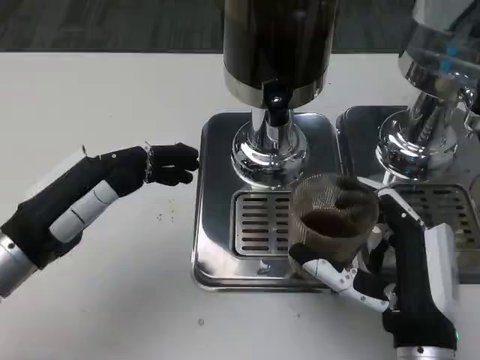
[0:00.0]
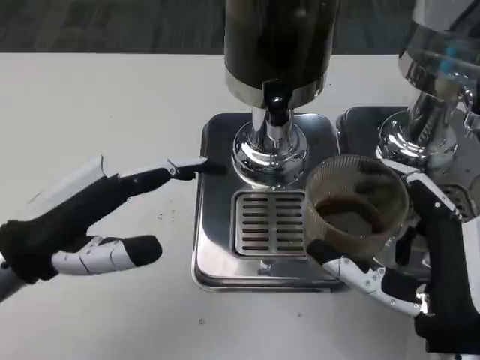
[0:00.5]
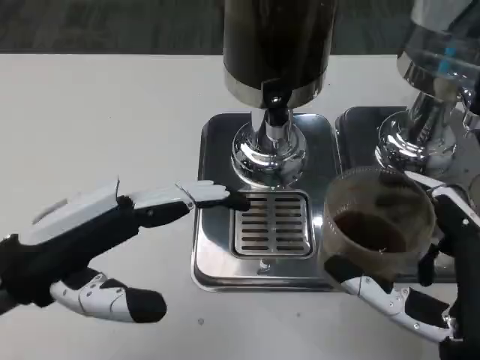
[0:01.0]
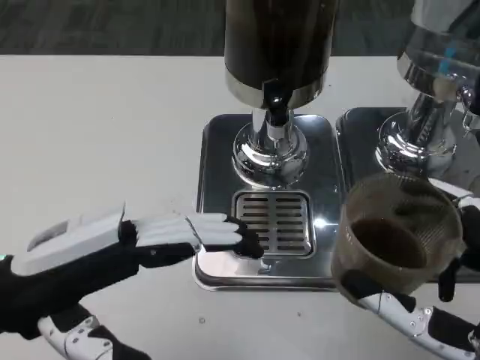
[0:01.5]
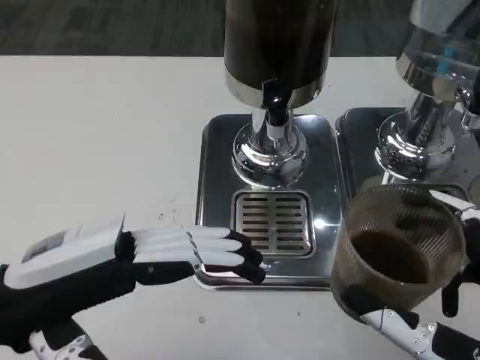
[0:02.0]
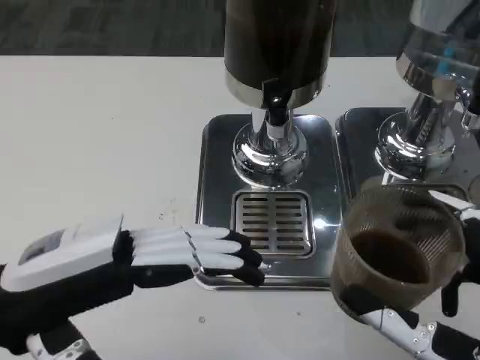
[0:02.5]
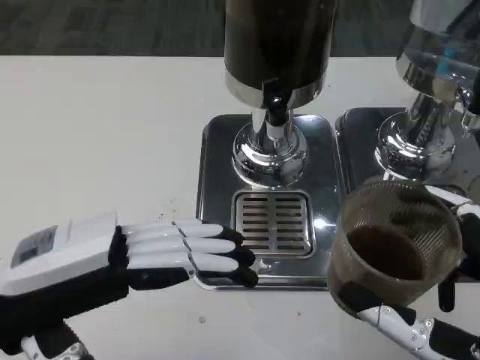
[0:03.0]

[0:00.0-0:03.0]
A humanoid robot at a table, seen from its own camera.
Task of the whole recording: Grasp the cup under the faucet to collect the drink, then remove the cup.
0:00.0 to 0:01.5: The right hand moves backward and upward, approximately 10 cm; the left hand shifts by some 5 cm.
0:01.5 to 0:03.0: The hands move only a little.

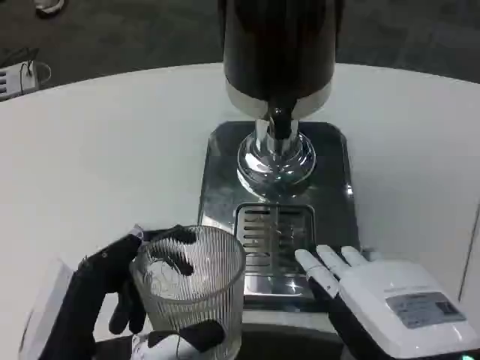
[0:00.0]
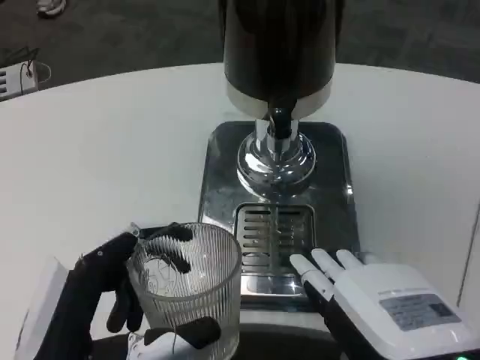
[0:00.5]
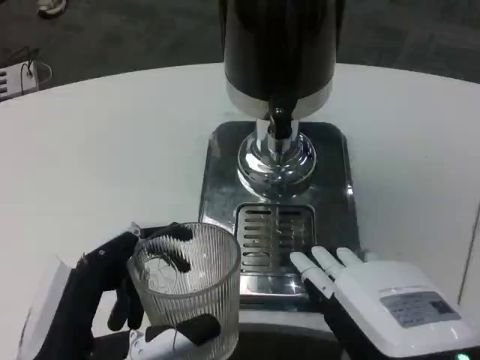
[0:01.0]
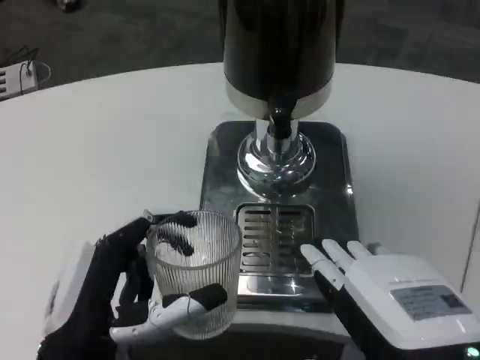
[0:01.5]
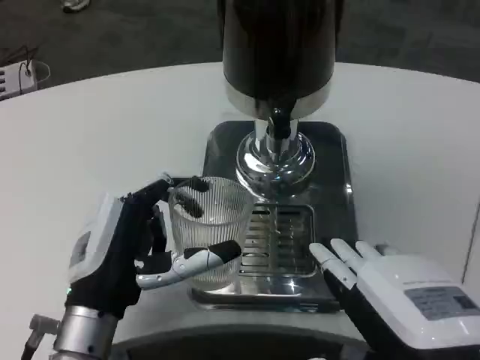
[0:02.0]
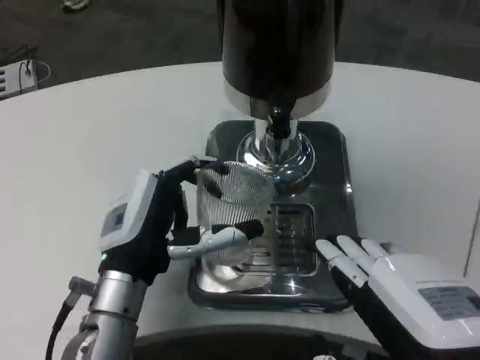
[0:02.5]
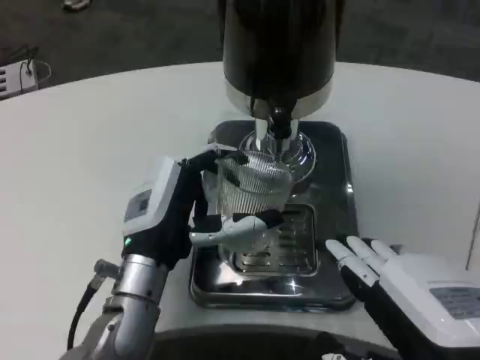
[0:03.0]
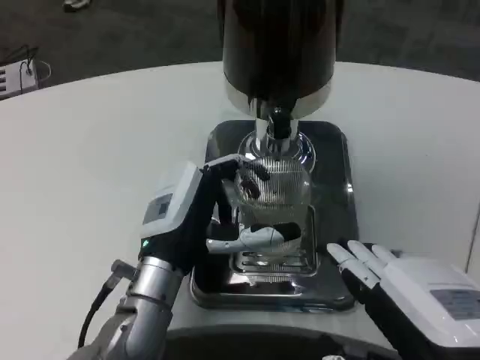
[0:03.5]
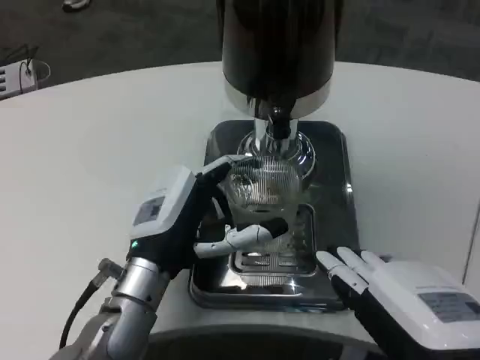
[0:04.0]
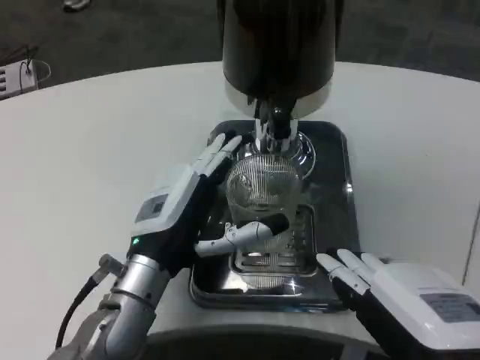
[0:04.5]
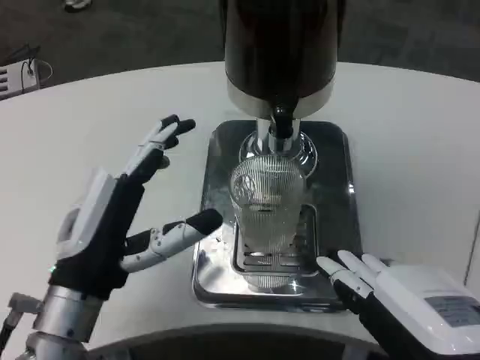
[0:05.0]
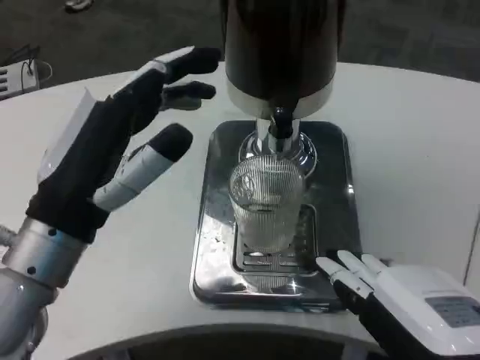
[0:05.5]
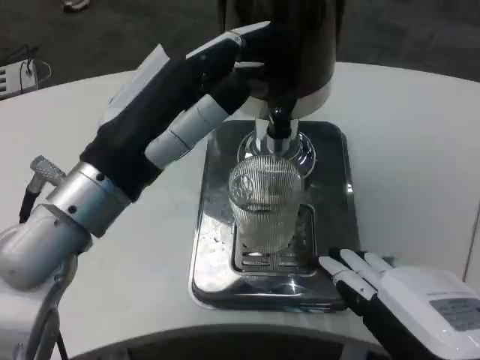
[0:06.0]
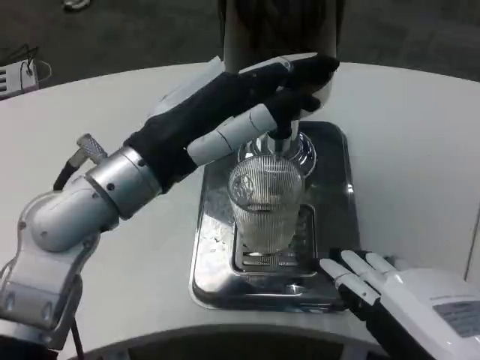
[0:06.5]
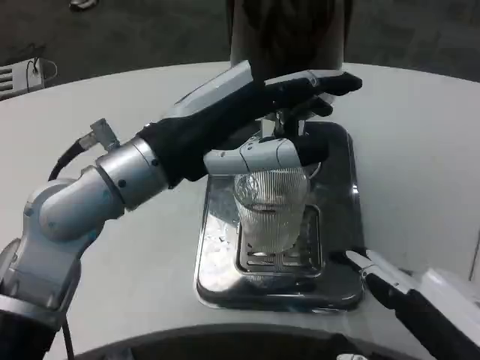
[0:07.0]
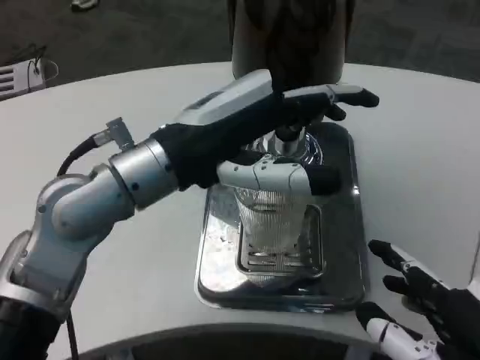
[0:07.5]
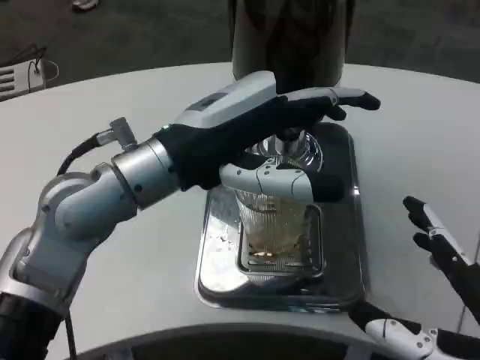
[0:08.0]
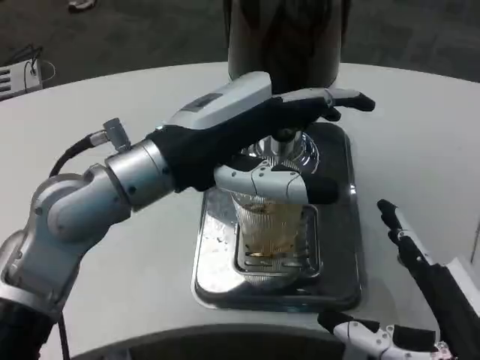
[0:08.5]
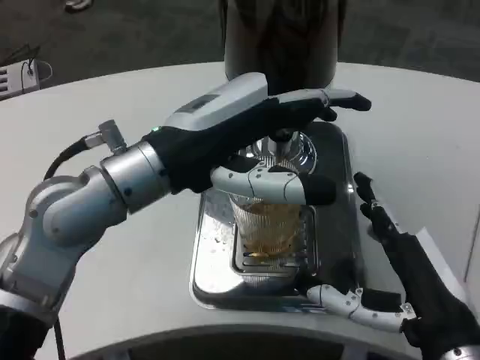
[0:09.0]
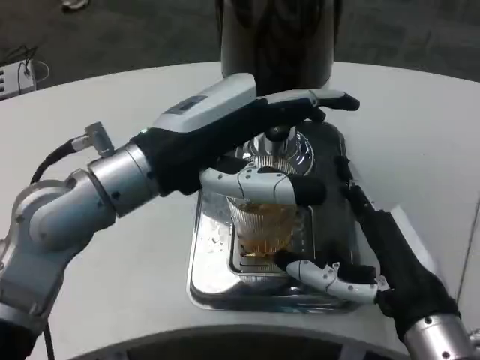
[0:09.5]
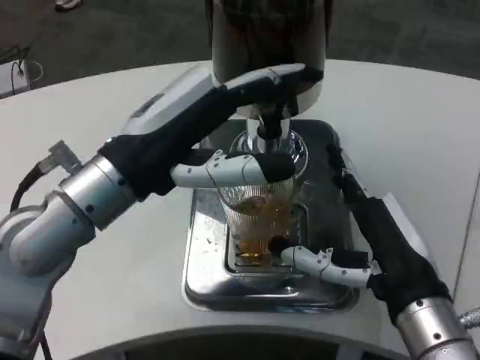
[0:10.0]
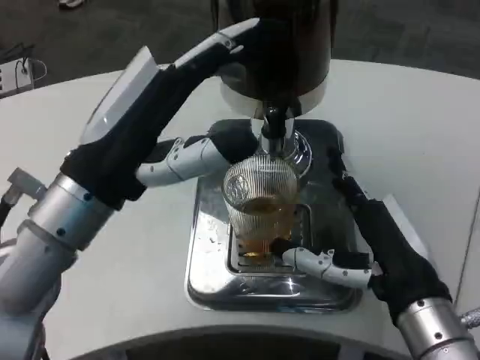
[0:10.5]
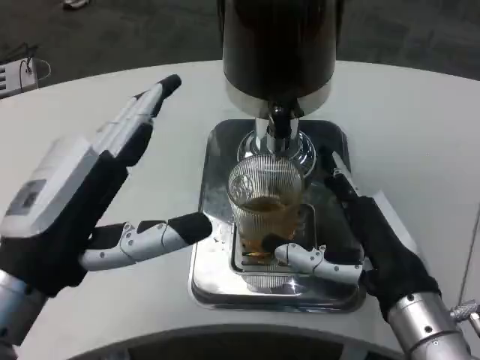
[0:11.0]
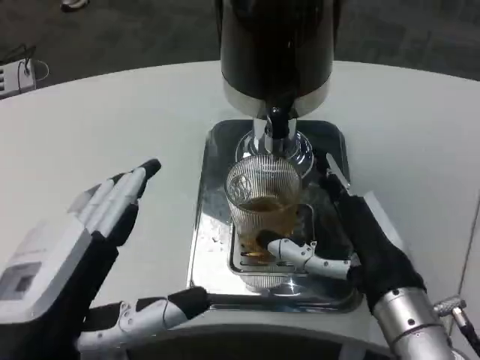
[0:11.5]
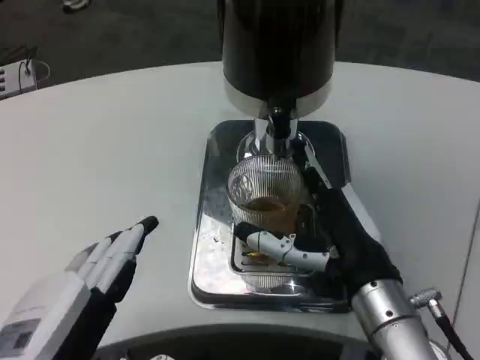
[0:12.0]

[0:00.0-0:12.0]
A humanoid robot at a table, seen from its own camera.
Task of the whole recording: Grasp the cup under the faucet to collect the drink, then remove the cup.
0:00.0 to 0:02.0: The left hand travels forward by some 10 cm.
0:02.0 to 0:04.0: The left hand shifts roughly 5 cm forward.
0:04.0 to 0:06.0: The left hand moves upward, about 15 cm.
0:08.0 to 0:10.0: The right hand moves forward and to the left, about 10 cm.
0:10.0 to 0:12.0: The left hand heads backward and downward, covering approximately 20 cm.

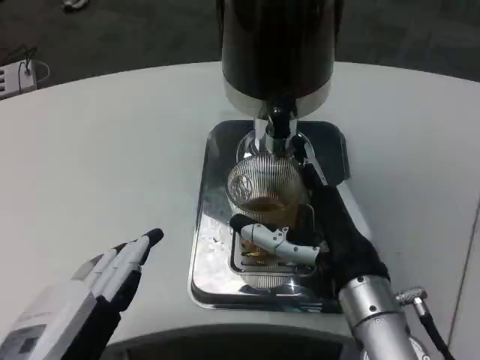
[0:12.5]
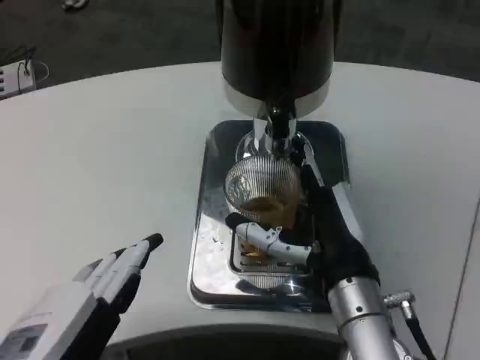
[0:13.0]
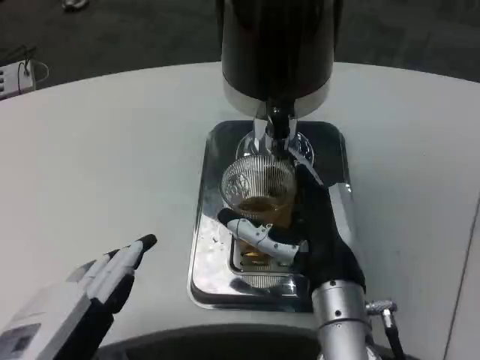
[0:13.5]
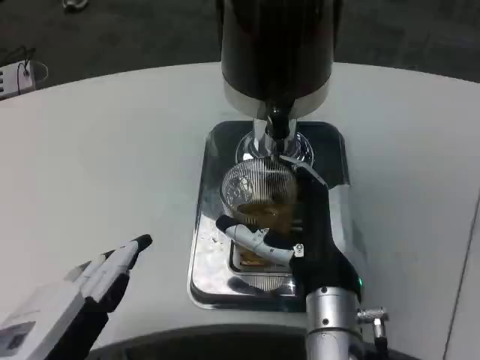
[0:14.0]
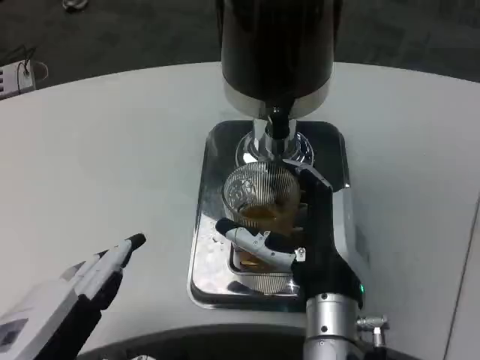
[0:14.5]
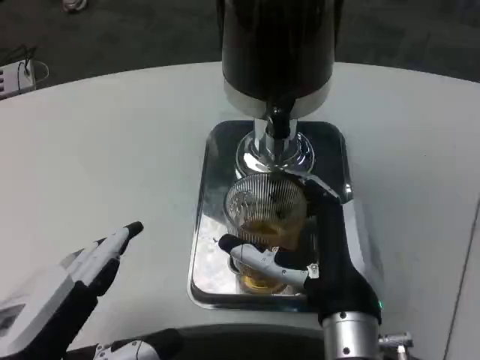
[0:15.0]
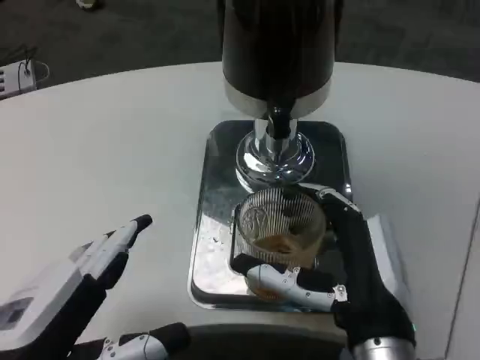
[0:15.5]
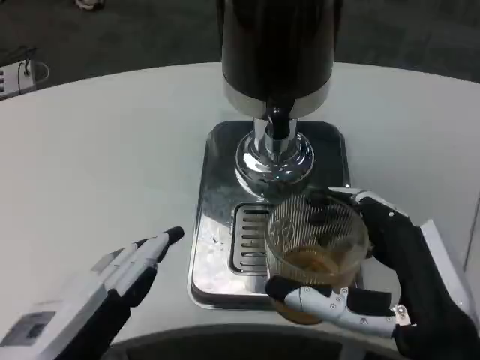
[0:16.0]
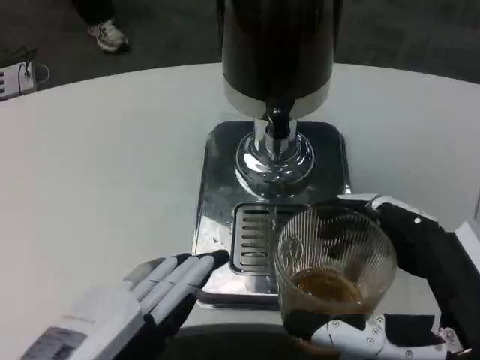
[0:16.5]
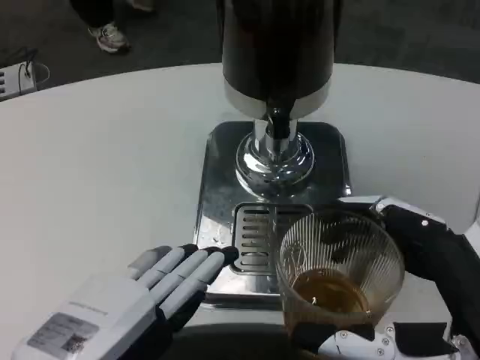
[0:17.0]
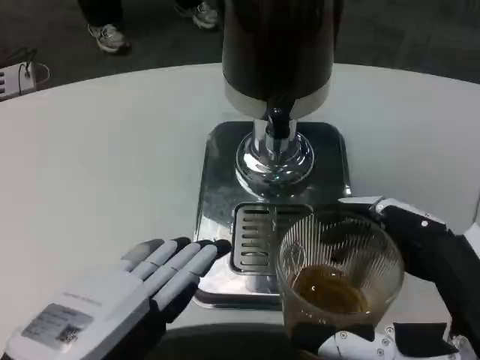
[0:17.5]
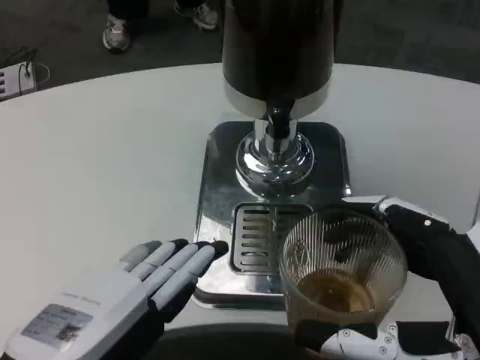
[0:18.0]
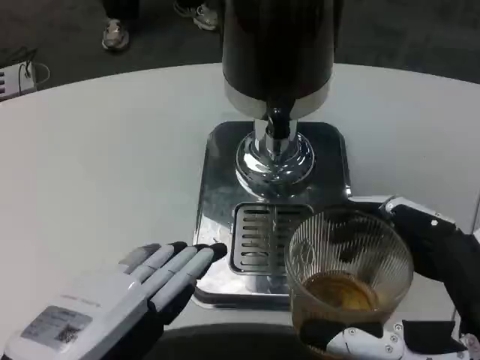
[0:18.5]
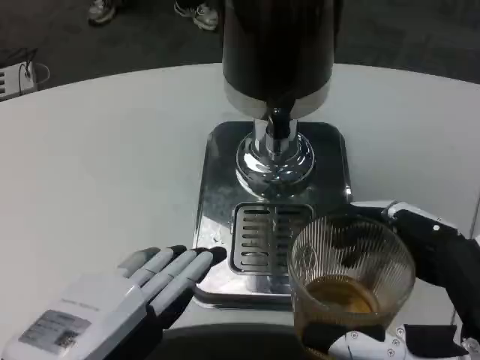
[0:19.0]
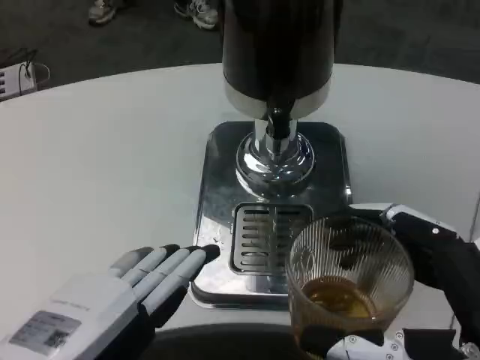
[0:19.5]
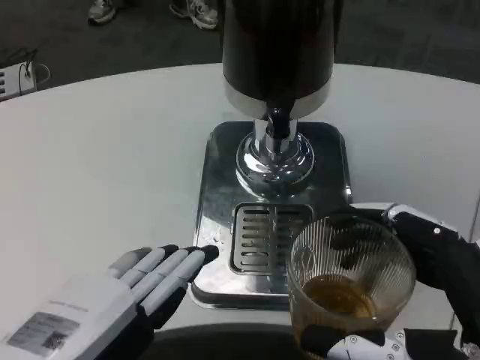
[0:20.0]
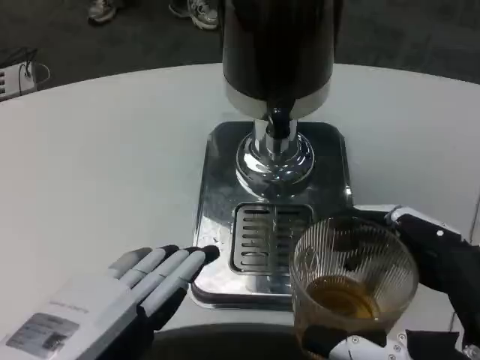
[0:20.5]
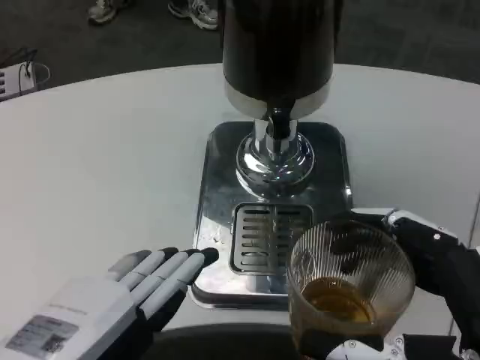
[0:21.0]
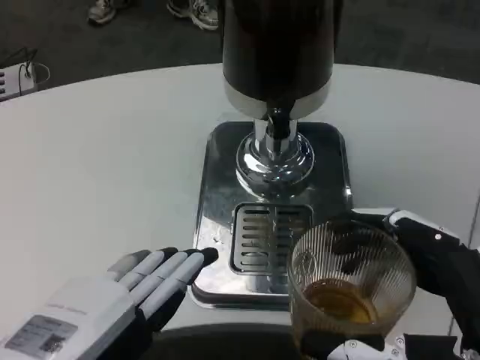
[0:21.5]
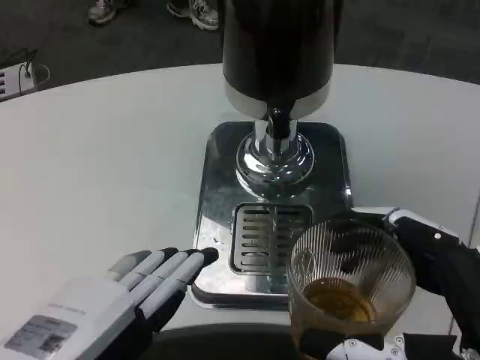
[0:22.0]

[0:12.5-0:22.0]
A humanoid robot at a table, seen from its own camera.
Task of the whole recording: Grasp the cup under the faucet to collect the drink, then remove the cup.
0:12.5 to 0:14.5: The right hand heads to the left, covering roughly 5 cm.
0:14.5 to 0:16.5: The right hand is displaced backward and to the right by roughly 20 cm.
0:16.5 to 0:18.0: The hands make only small movements.
0:18.0 to 0:22.0: Neither hand changes place.

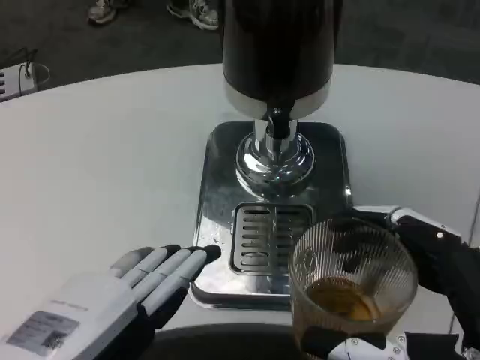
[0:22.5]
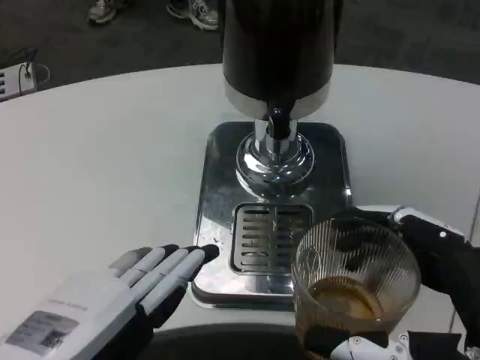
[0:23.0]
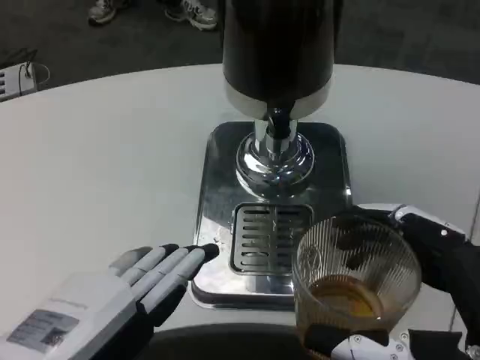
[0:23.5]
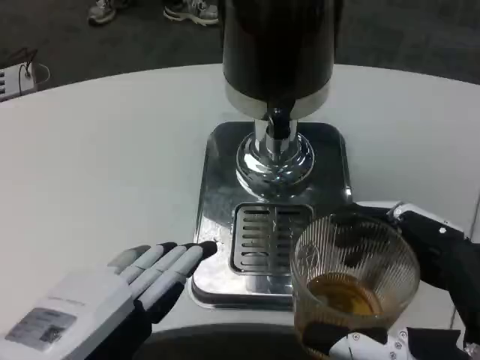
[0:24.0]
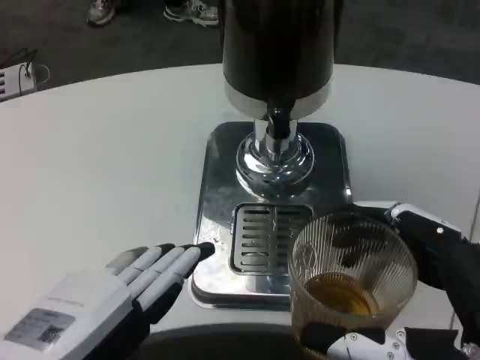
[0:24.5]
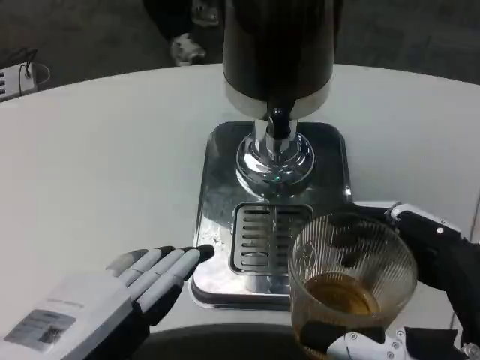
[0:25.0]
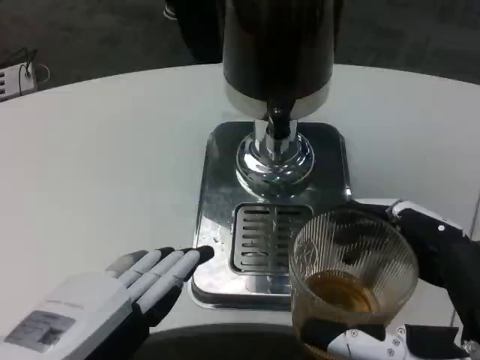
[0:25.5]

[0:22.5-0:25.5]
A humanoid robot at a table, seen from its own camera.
Task of the whole recording: Grasp the cup under the faucet to collect the drink, then remove the cup.
0:22.5 to 0:25.5: Both hands stay put.
